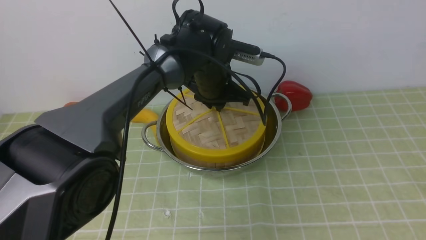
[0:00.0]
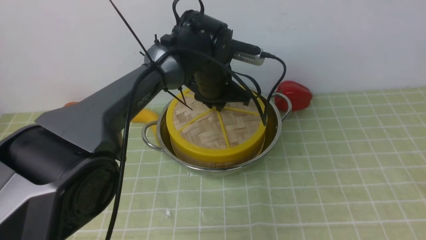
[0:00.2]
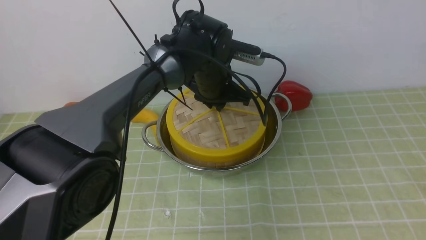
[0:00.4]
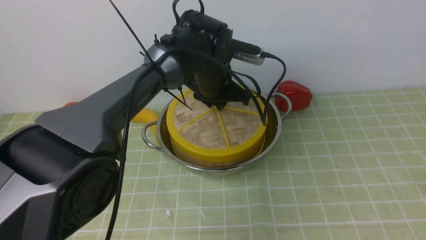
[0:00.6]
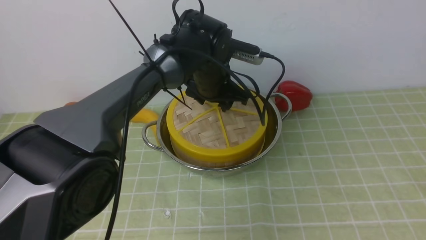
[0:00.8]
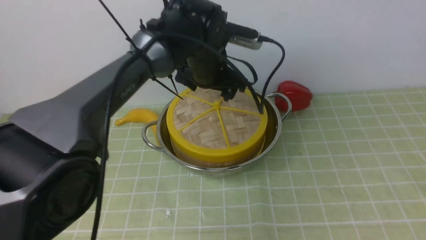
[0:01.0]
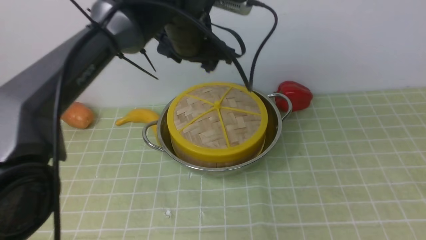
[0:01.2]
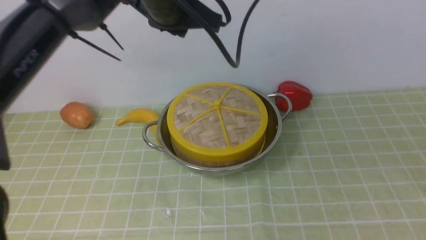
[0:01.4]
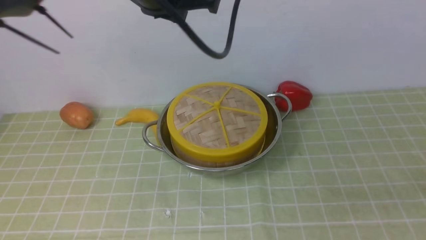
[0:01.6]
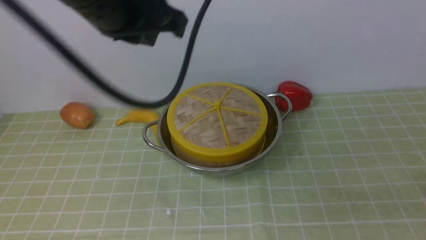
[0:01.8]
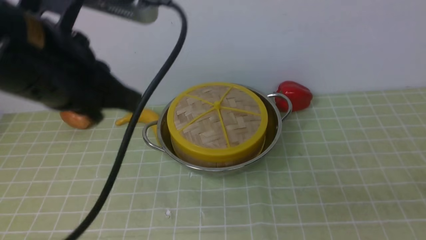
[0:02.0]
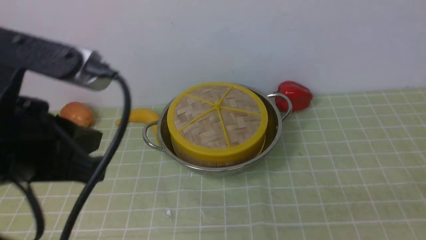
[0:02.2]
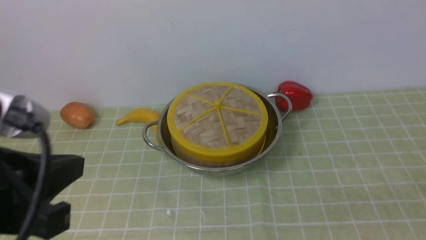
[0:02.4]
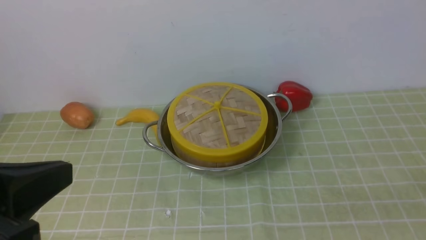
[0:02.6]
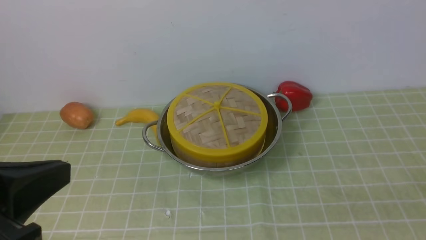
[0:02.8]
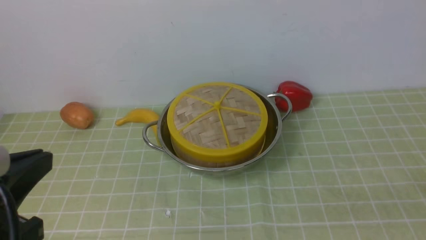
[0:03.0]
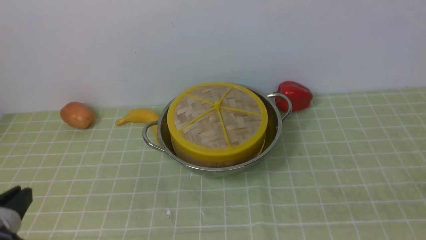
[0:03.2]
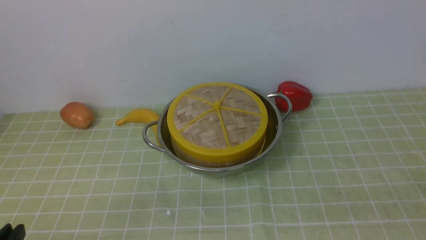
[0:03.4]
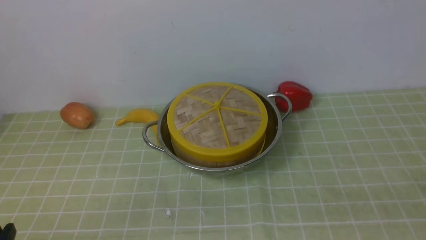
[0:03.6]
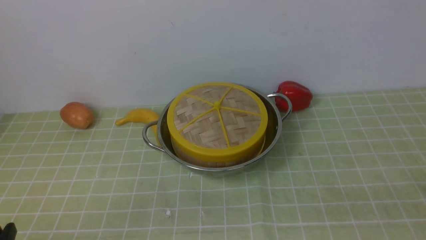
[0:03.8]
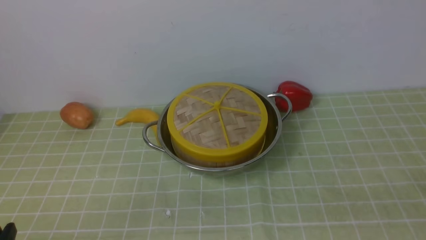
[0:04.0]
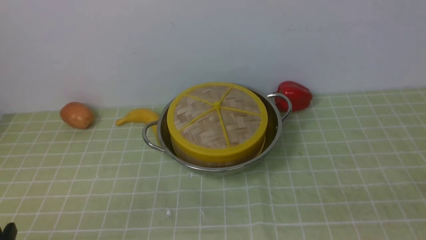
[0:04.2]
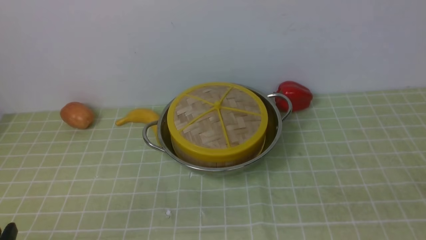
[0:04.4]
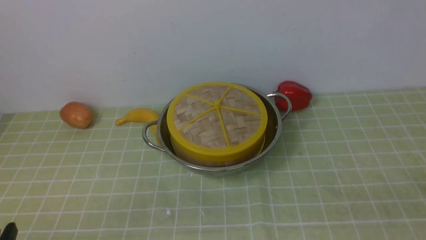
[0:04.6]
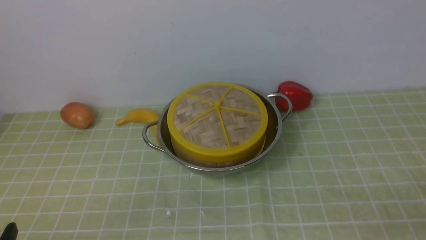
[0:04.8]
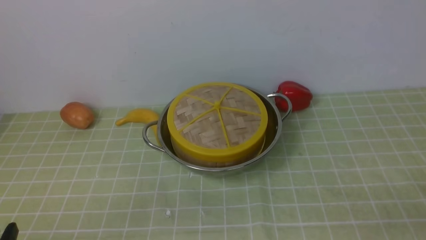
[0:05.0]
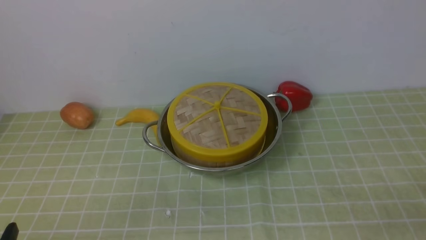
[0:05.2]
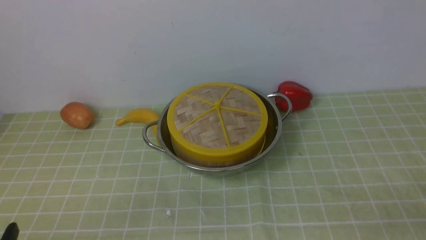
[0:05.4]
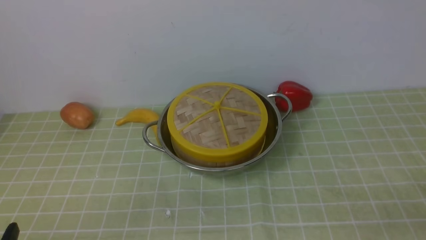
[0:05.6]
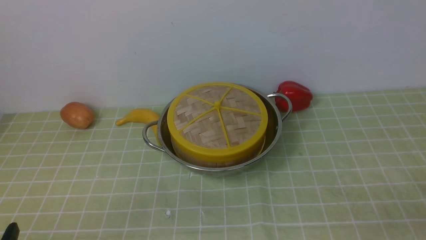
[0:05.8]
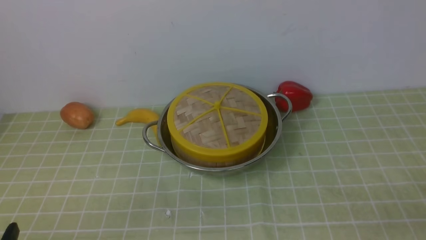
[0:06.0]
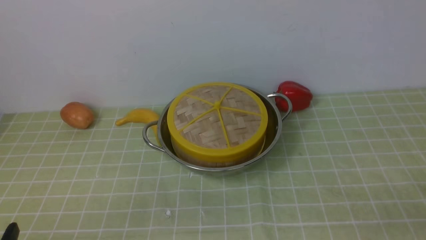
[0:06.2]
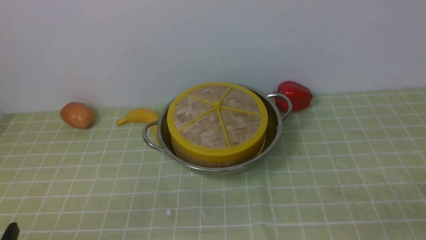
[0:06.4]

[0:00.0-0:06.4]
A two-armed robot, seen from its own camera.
Task of the whole recording: place the steamer in the pot on the green tablecloth, and put the lid on the steamer.
0:00.0 to 0:01.6: The left gripper shifts some 25 cm upward and backward, and opens, then closes again. Meanwhile the right gripper heads downward, covering some 15 cm, and closes its fingers.
0:01.6 to 0:03.2: The left gripper travels backward, downward and to the left by approximately 35 cm.
0:03.2 to 0:04.8: The left gripper heads downward, covering approximately 5 cm.
0:04.8 to 0:06.4: Both grippers stay about where they are.
